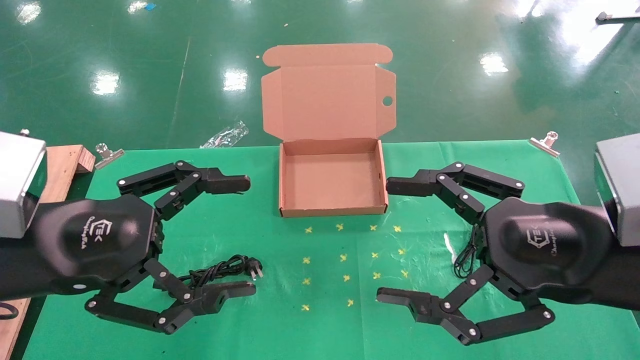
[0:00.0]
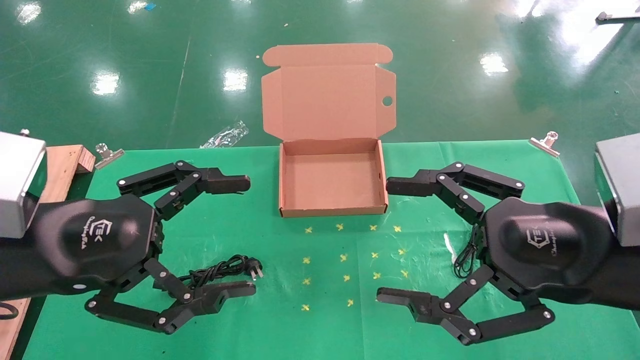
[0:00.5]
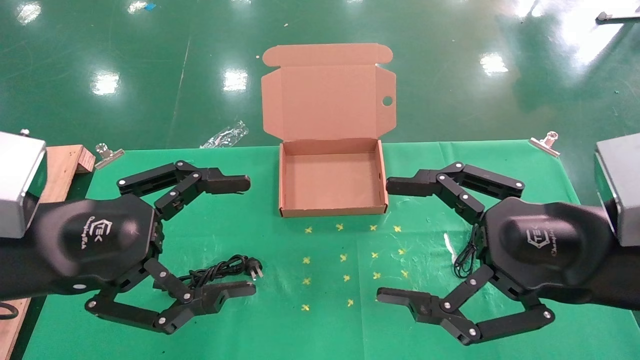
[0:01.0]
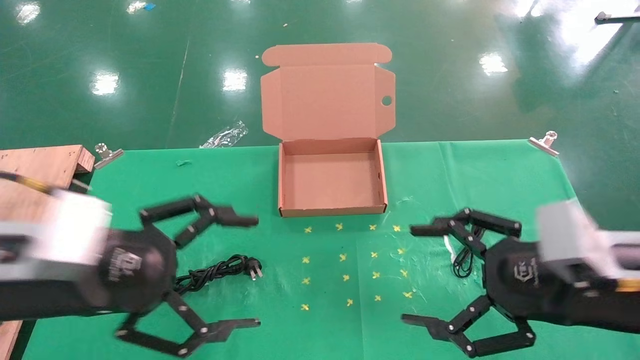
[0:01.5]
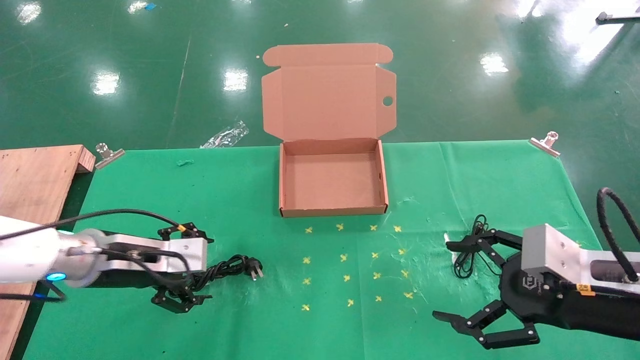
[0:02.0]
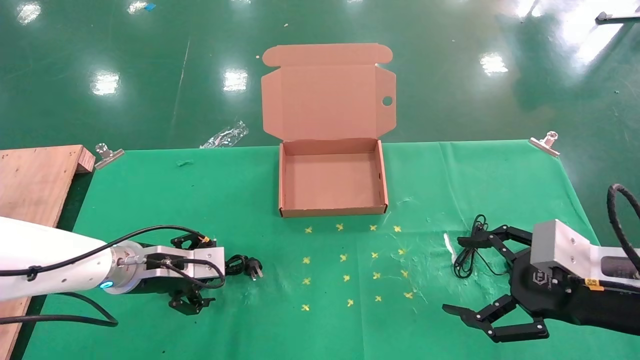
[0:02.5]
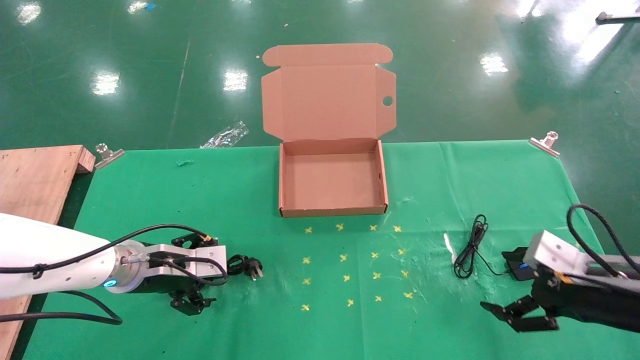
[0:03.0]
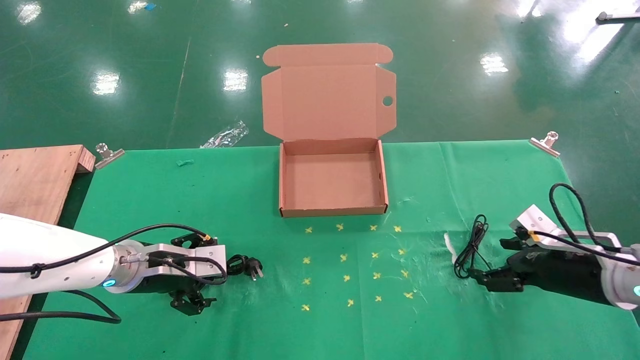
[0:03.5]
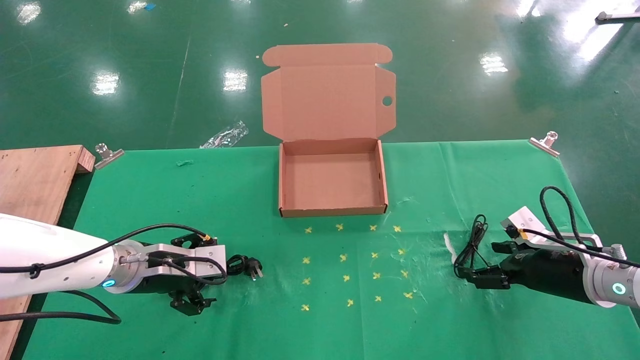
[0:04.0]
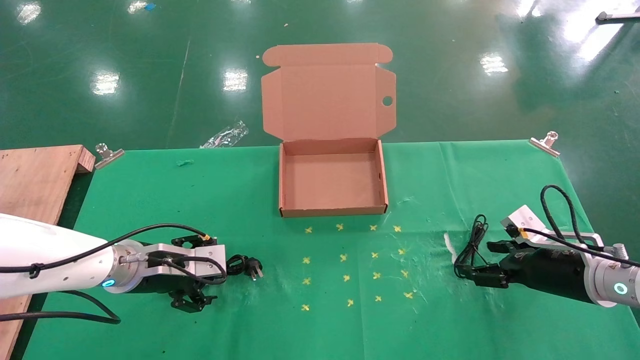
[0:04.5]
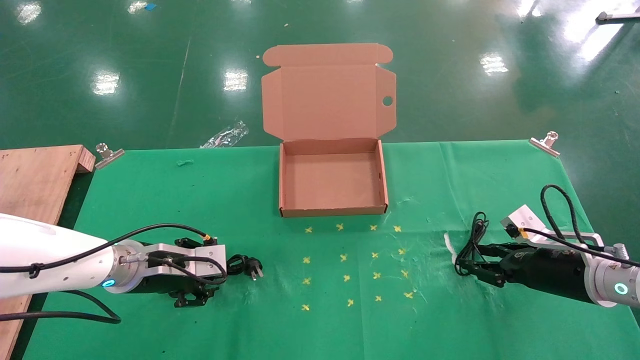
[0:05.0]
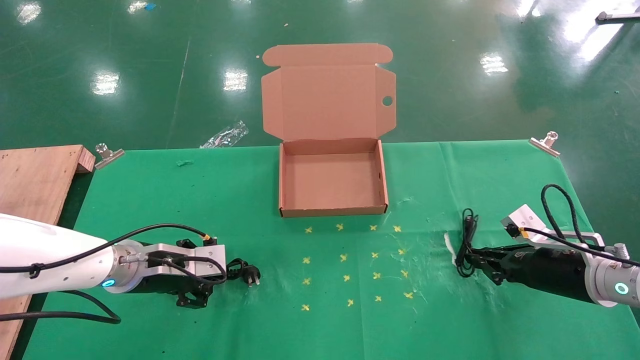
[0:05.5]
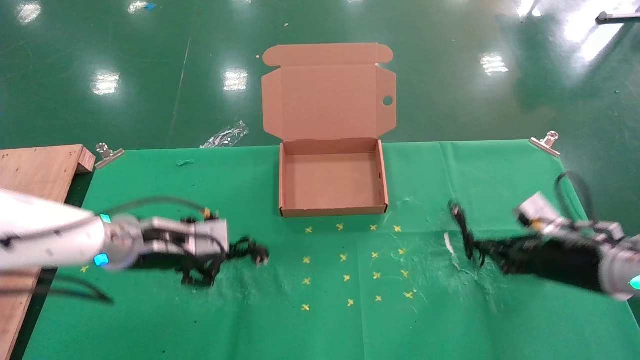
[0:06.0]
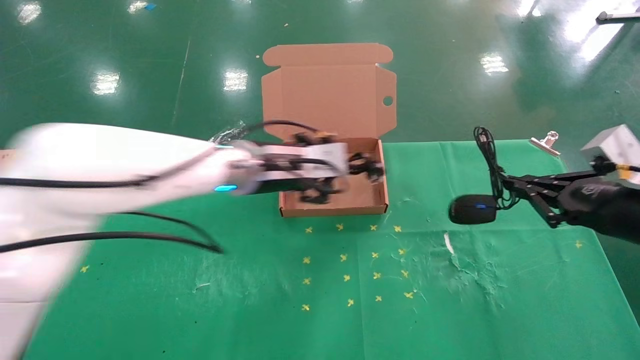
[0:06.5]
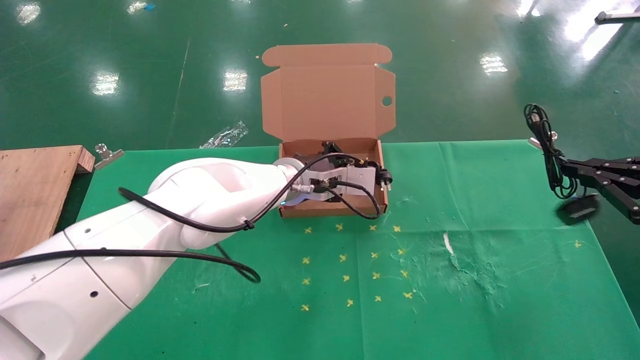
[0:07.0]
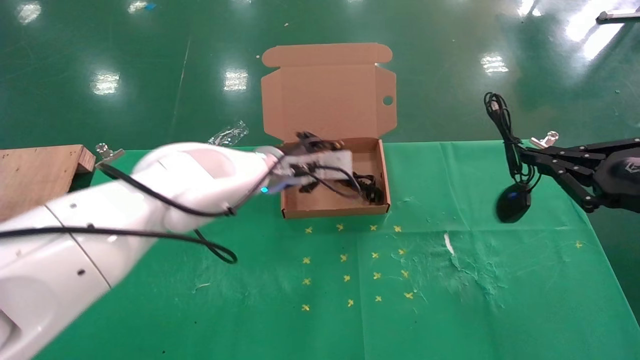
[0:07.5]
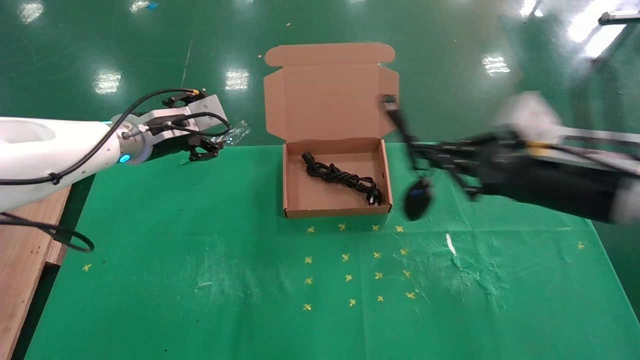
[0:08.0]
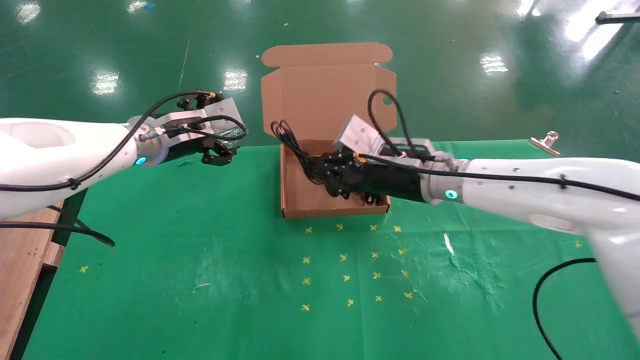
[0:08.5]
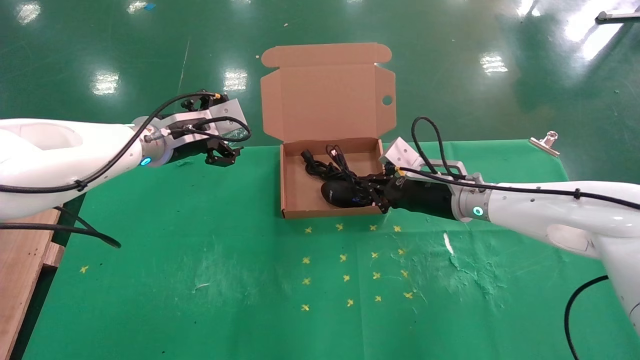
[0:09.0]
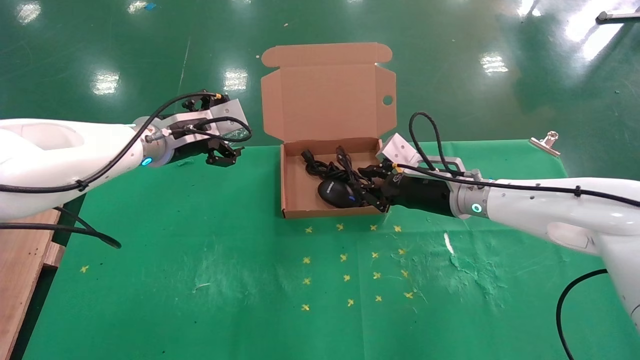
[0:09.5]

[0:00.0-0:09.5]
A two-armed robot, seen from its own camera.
Task of the whole recording: grasp data cable left put into box grasp mouse right put into box.
Step, 0:01.5 to 0:05.5: Simultaneously pick up the mouse and power cord from the accessory packaging area.
Step, 0:06.0 to 0:09.0: Place the mouse and power cord into the box.
0:00.0 to 0:02.0: The left gripper heads forward and downward, covering about 15 cm, while the right gripper goes about 10 cm downward and to the right.
0:02.0 to 0:04.0: The right gripper moves forward, downward and to the right, approximately 15 cm.
0:04.0 to 0:05.5: The left gripper closes up, while the right gripper closes its fingers.
0:05.5 to 0:07.5: The right gripper travels upward and backward by roughly 20 cm, while the left gripper travels to the right, upward and forward by about 25 cm.
0:07.5 to 0:09.5: The left gripper moves to the left, approximately 15 cm, and opens up. Meanwhile the right gripper travels forward, to the left and downward by about 30 cm.

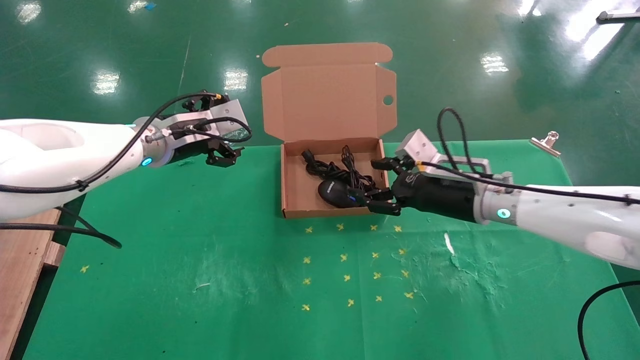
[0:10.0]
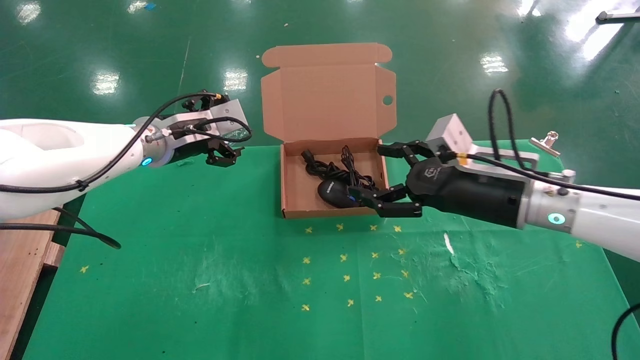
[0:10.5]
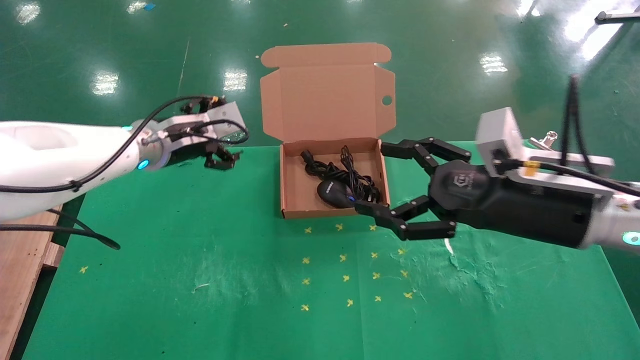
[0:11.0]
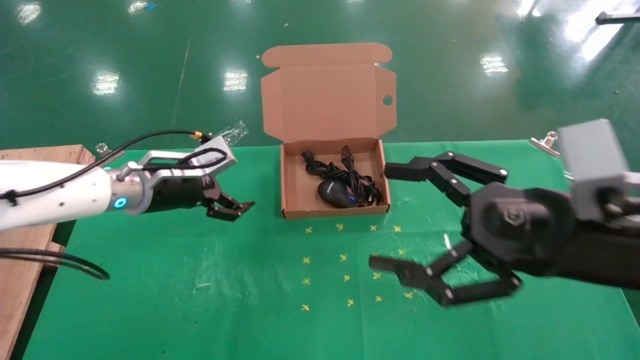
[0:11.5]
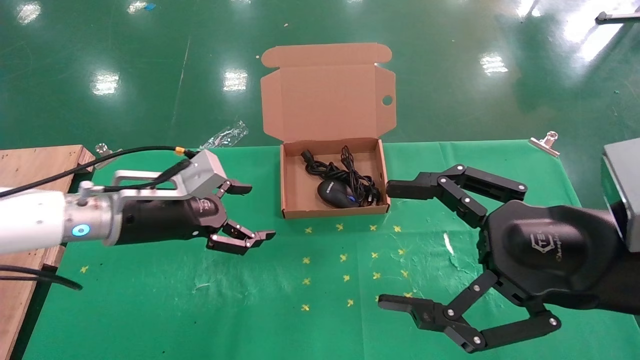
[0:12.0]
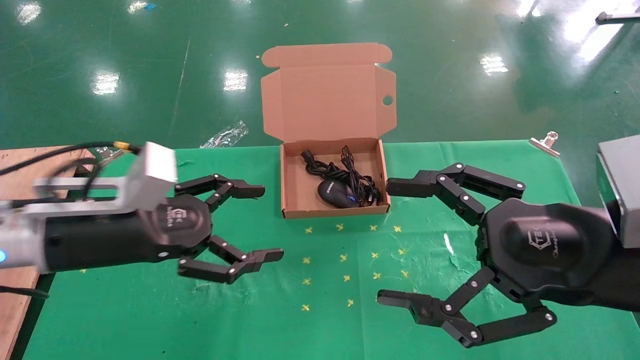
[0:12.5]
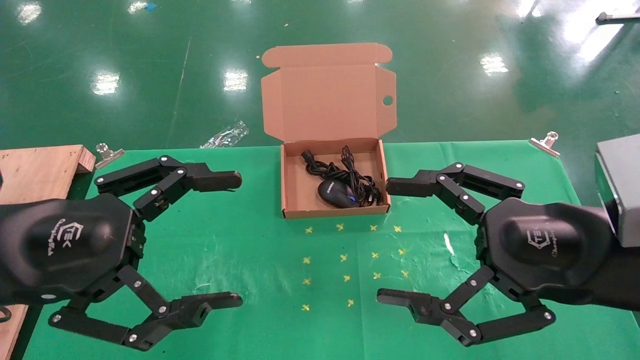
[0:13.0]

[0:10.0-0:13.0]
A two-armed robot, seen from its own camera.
Task of the whole recording: grasp data cable left put into box grasp mouse right put into box.
0:10.0 to 0:11.5: The left gripper heads downward, covering approximately 5 cm, while the right gripper heads backward, covering approximately 20 cm, and opens its fingers.
0:11.5 to 0:13.0: The left gripper goes about 20 cm backward.
